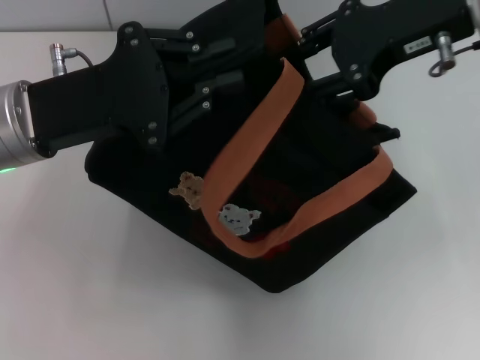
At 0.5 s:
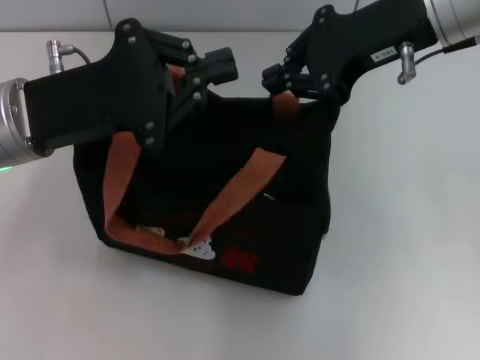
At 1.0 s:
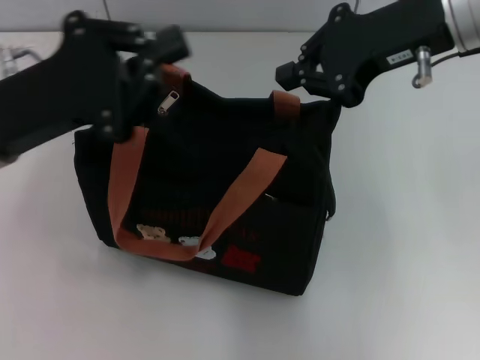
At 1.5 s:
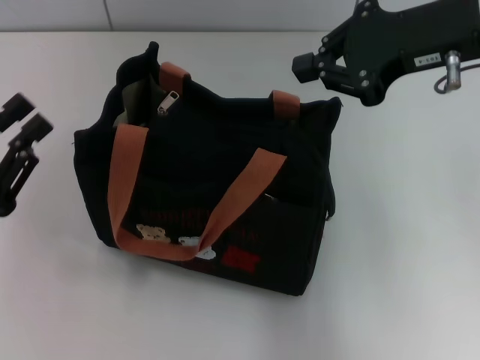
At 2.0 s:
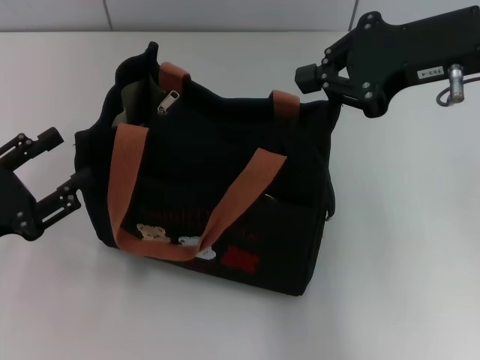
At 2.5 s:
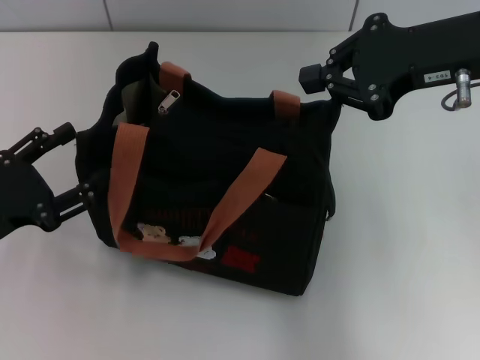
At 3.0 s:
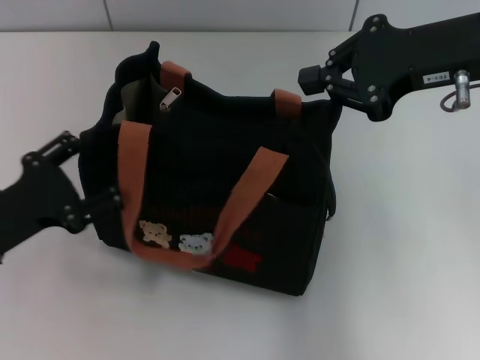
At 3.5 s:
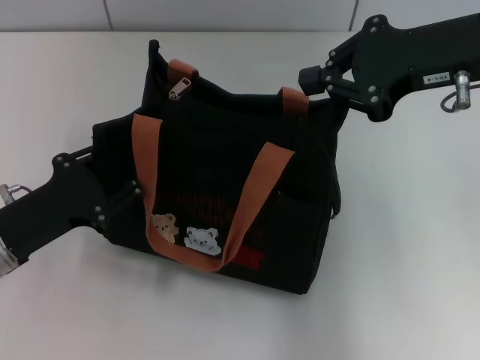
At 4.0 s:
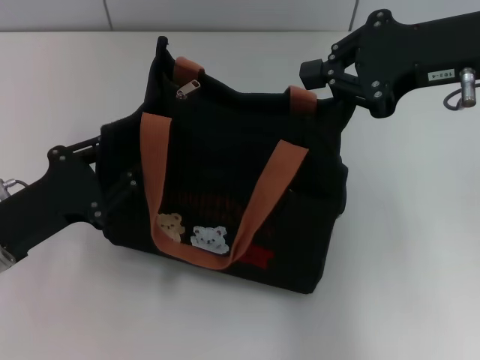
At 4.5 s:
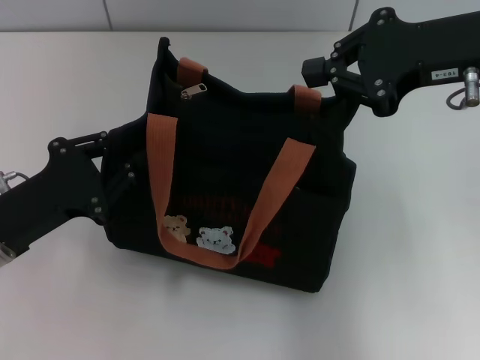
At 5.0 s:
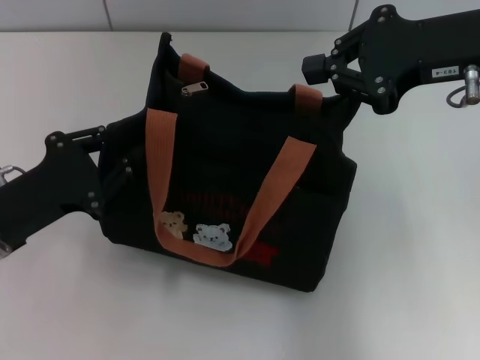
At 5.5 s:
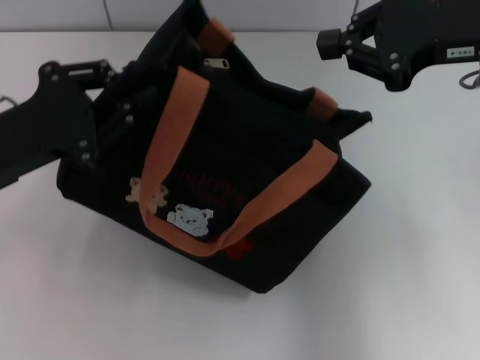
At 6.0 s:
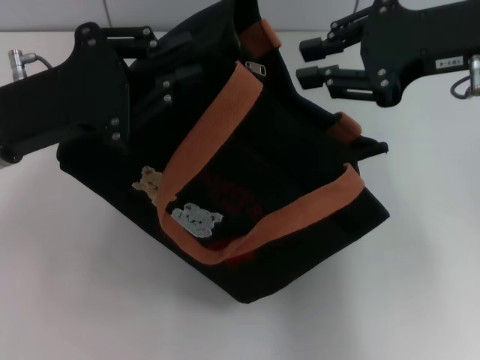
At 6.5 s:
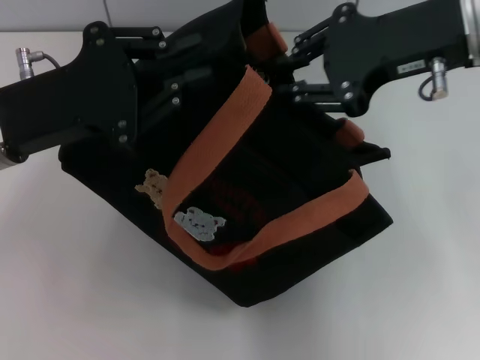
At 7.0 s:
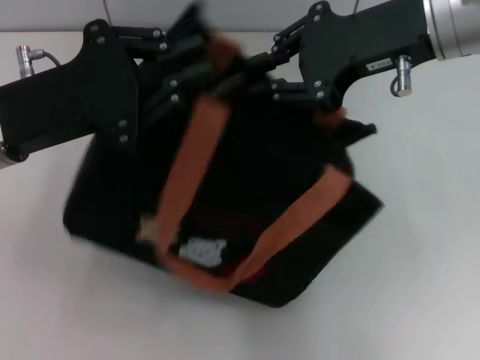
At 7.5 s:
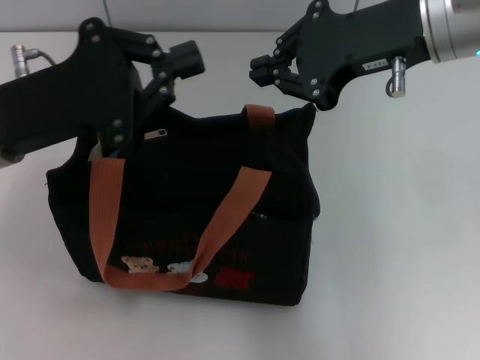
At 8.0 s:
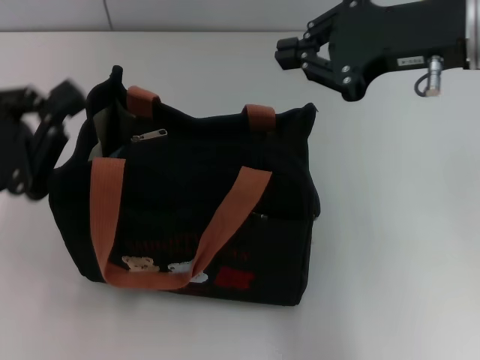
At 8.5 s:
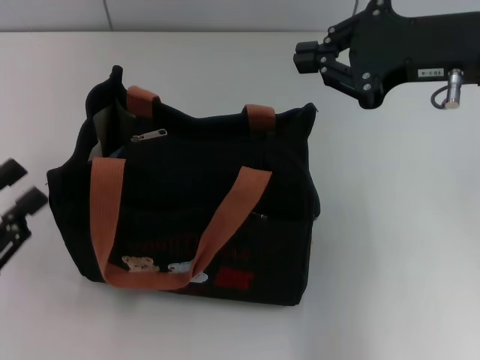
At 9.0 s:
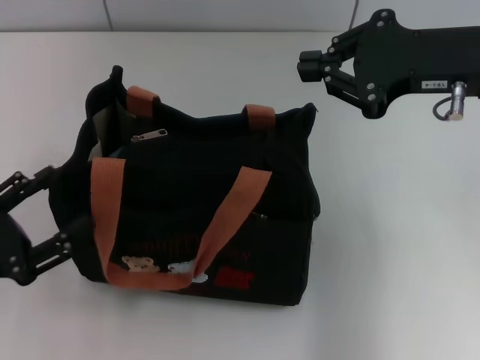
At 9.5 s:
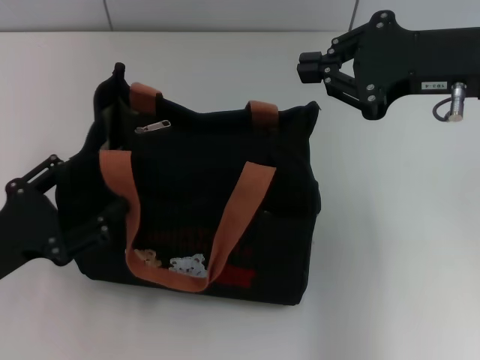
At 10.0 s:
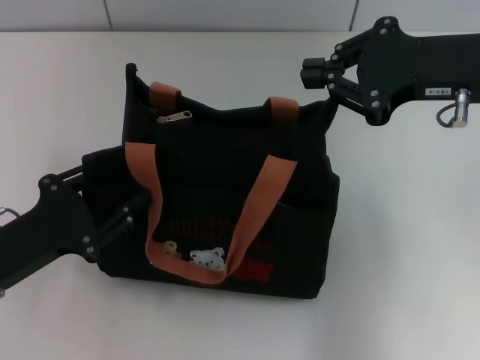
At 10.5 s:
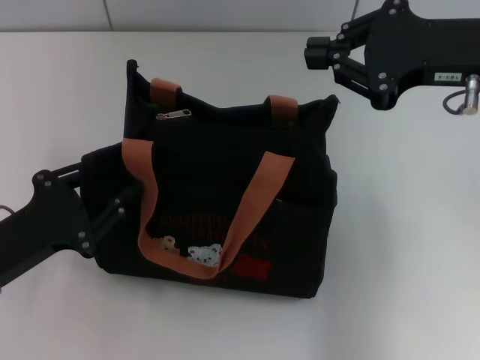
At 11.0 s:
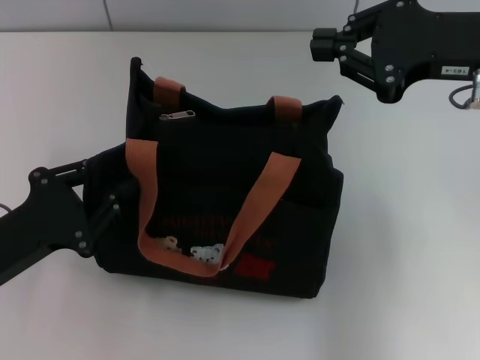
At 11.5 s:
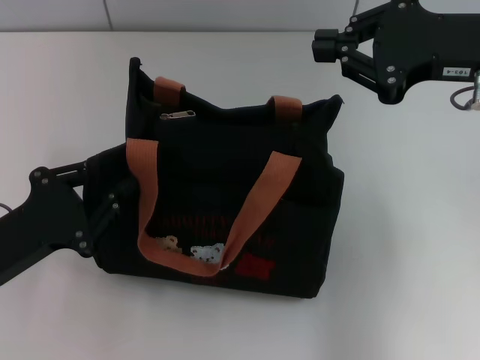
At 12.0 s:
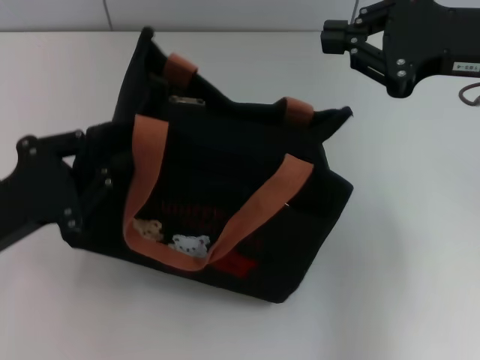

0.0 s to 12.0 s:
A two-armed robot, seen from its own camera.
0.0 to 2.0 s: The left gripper moves to the left, backward and downward, approximately 15 cm, and opens up. The right gripper closes.
2.0 to 4.0 s: The left gripper changes place by approximately 5 cm, and opens and closes again.
4.0 to 6.0 s: The left gripper is displaced upward and forward by some 10 cm.
6.0 to 8.0 s: The left gripper is displaced backward and to the left by approximately 10 cm.
8.0 to 10.0 s: The left gripper is displaced downward by approximately 5 cm, and opens up.
10.0 to 12.0 s: The left gripper closes up.

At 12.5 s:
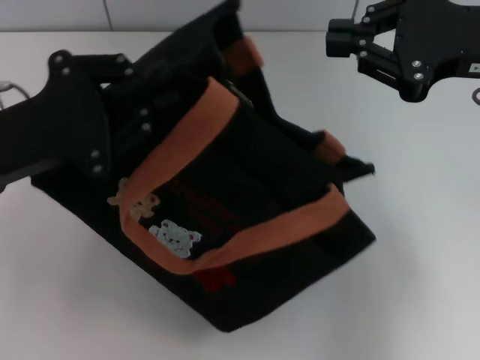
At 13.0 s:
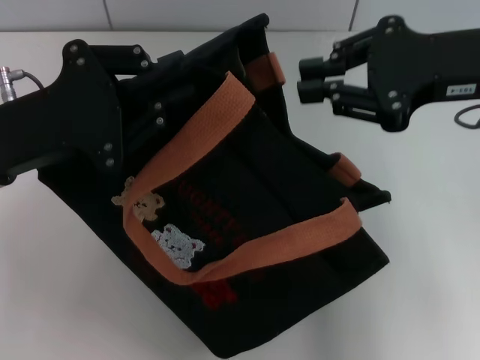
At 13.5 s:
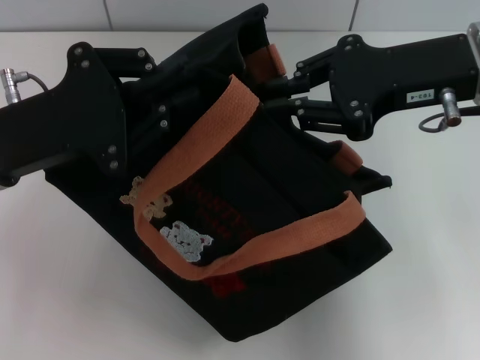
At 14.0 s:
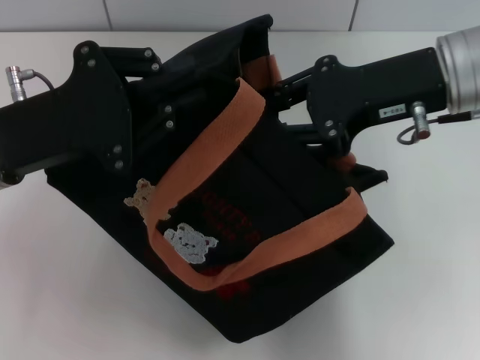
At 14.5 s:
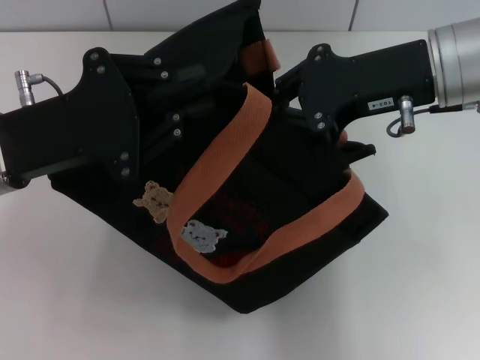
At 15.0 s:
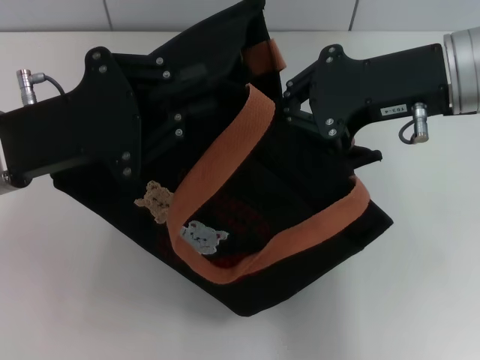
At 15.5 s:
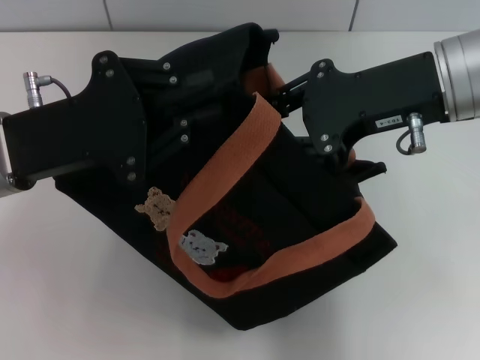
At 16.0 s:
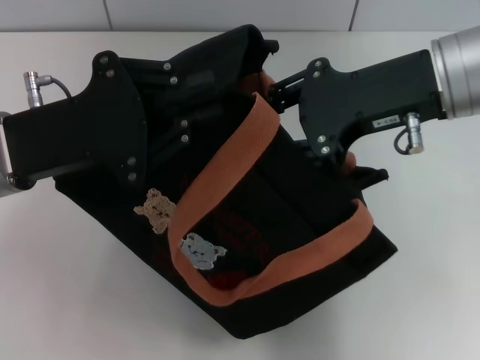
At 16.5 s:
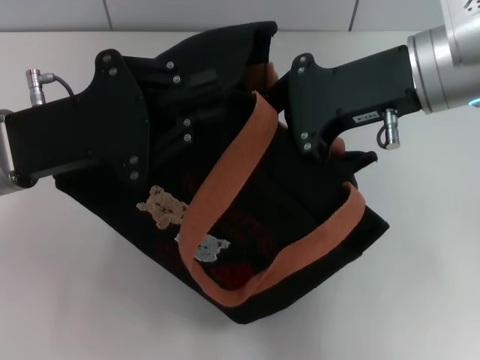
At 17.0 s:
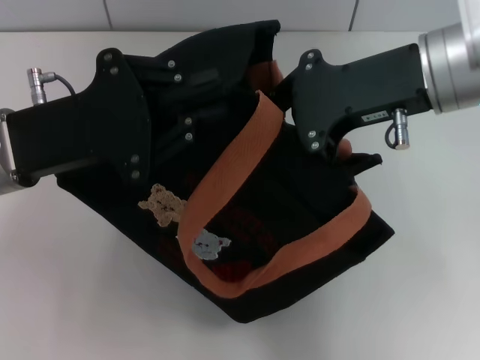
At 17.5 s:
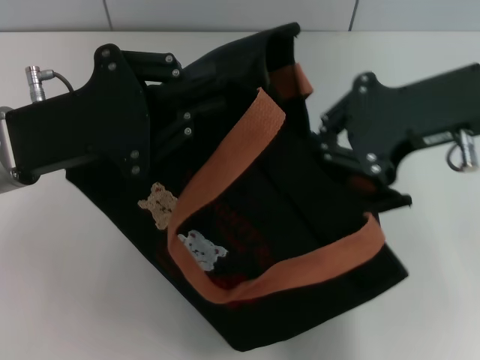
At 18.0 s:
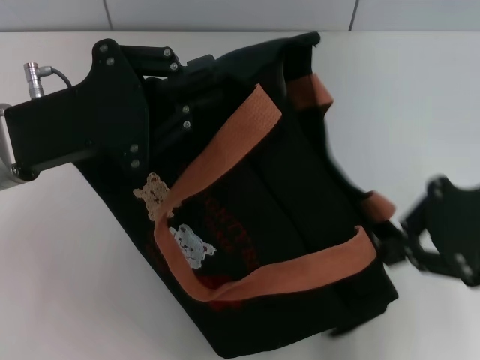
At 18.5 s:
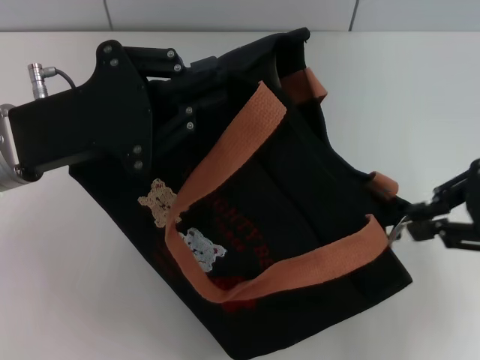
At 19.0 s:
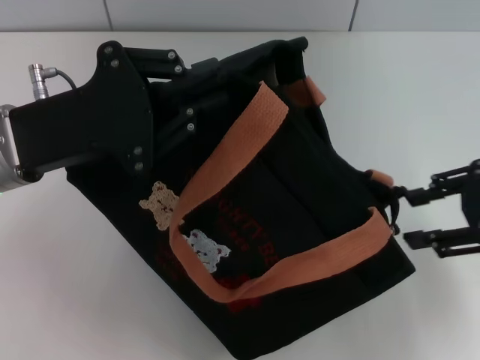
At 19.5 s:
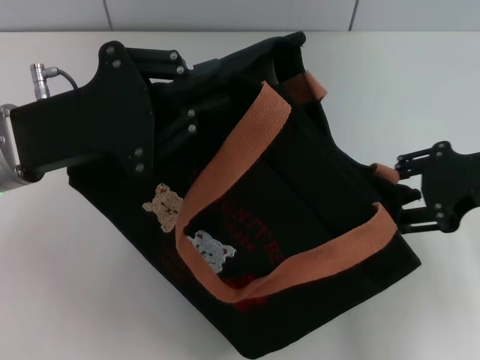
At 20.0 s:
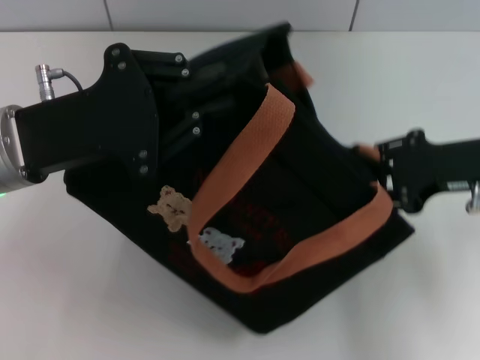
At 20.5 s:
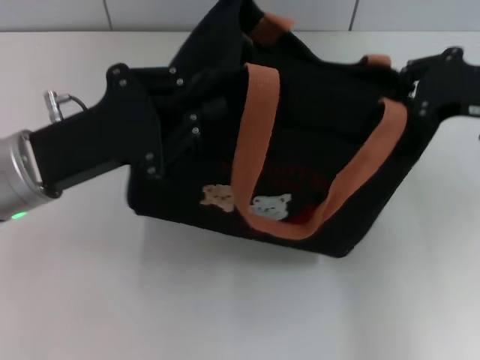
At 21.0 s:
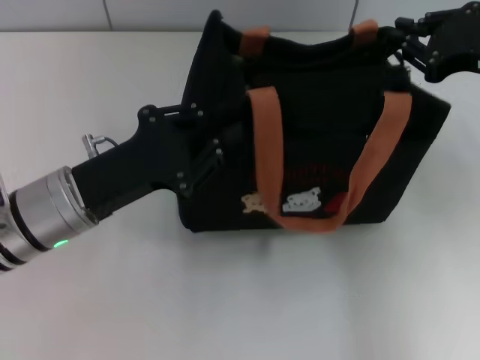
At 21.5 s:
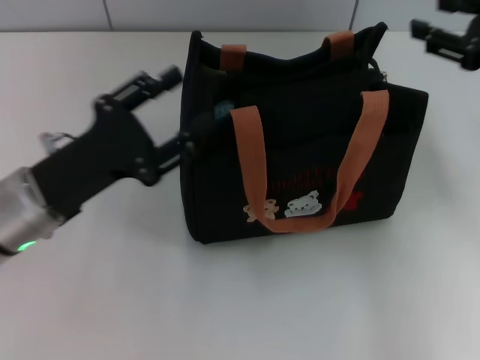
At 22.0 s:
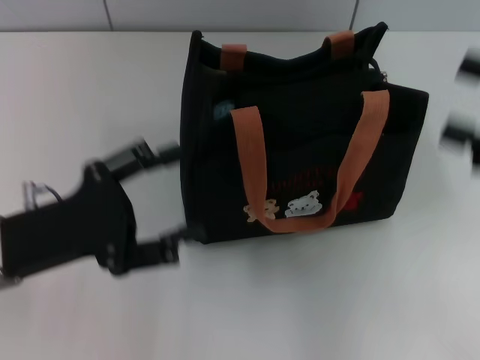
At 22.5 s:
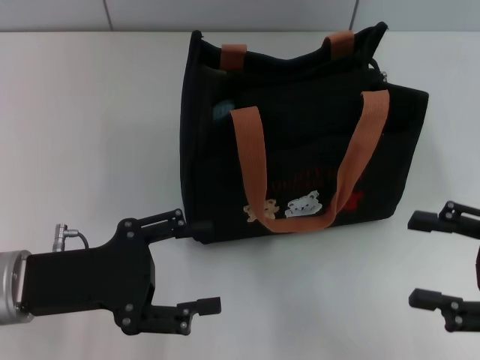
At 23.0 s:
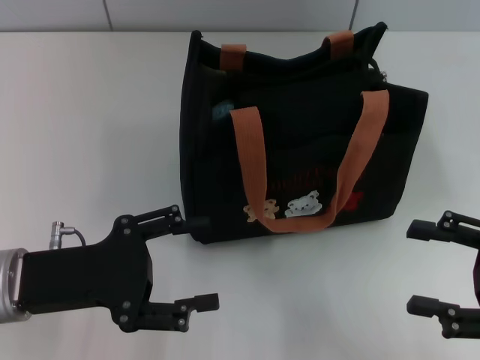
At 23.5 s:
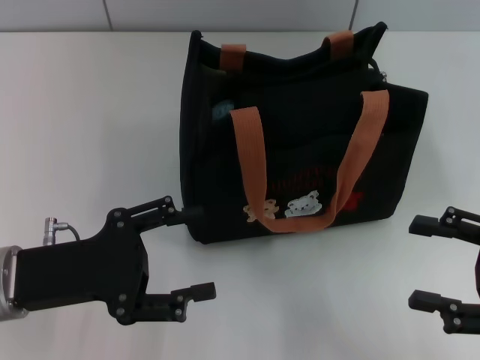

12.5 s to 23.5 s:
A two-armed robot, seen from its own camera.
Step, 12.5 to 21.0 s: Pull open the zipper with your right hand.
12.5 to 14.5 s: The right gripper goes some 5 cm to the left.
14.5 to 16.0 s: The right gripper opens.
16.0 to 18.0 s: The right gripper is displaced to the right and backward by roughly 10 cm, and closes its fingers.
18.0 to 20.0 s: The right gripper shifts approximately 5 cm downward, and opens its fingers.
20.0 to 21.5 s: The left gripper travels downward by roughly 5 cm. The right gripper is displaced upward by about 5 cm.
21.5 to 23.5 s: The right gripper moves backward and downward, roughly 15 cm, and opens. The left gripper opens up.

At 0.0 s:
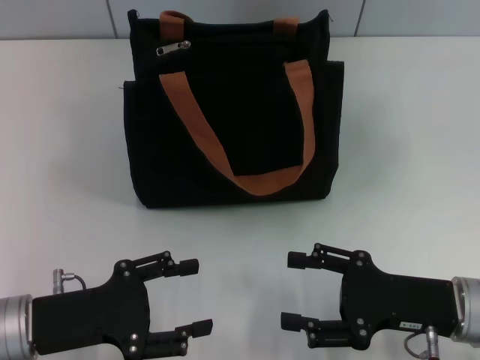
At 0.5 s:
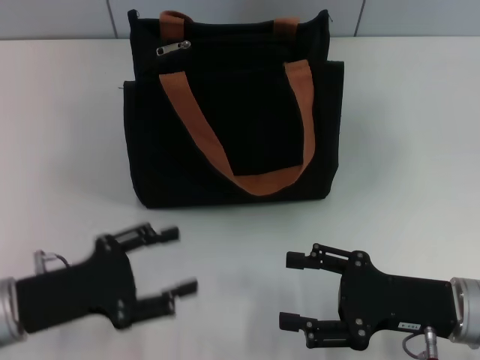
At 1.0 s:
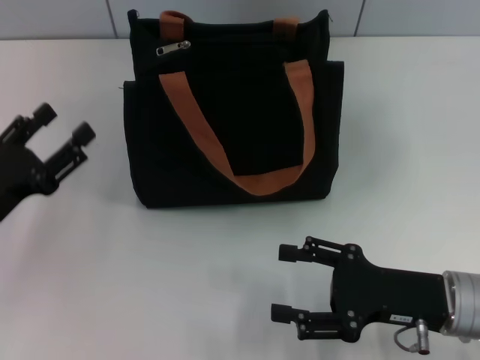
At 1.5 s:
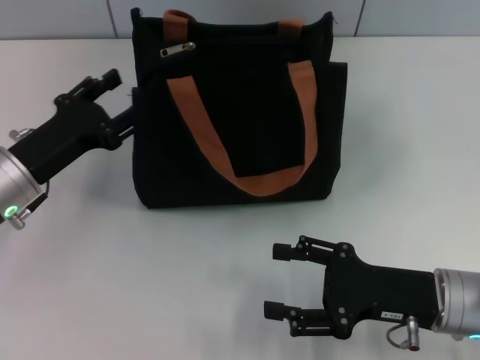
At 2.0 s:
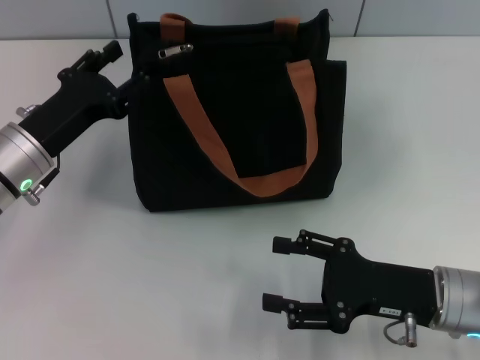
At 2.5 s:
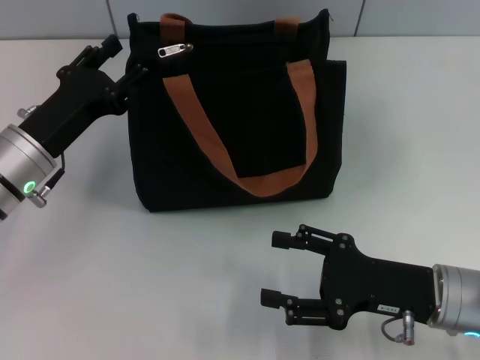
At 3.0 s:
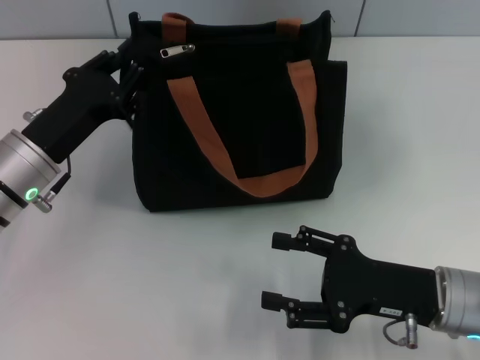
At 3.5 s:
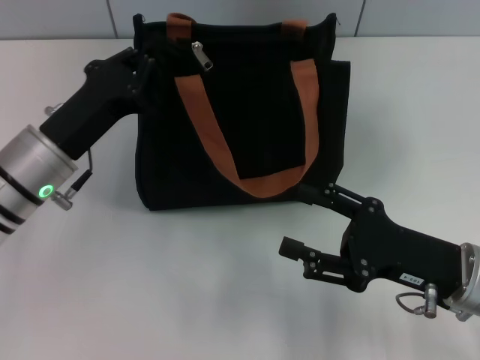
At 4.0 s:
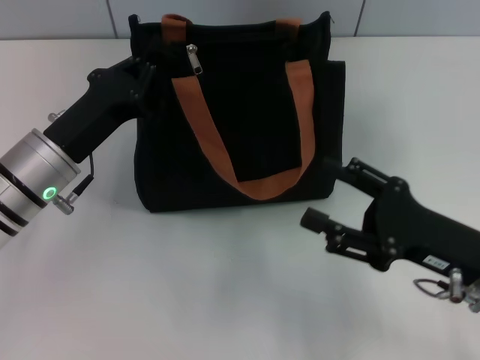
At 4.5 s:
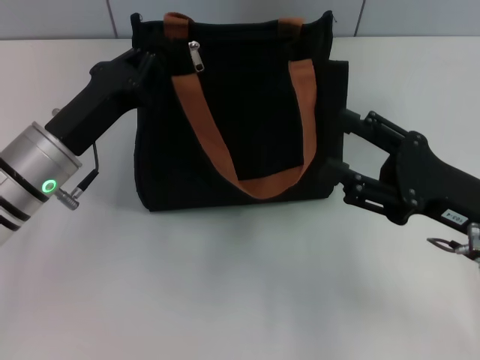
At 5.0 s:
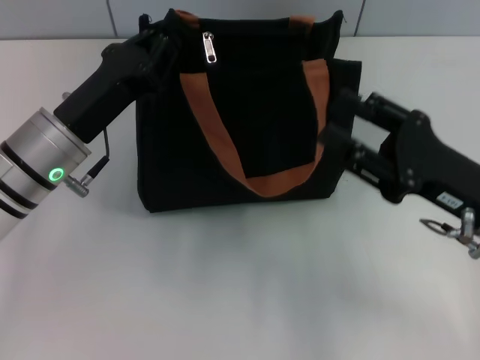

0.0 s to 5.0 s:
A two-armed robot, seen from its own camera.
0.0 to 2.5 s: The left gripper goes approximately 10 cm forward.
2.5 to 5.0 s: The left gripper closes. Meanwhile the right gripper goes some 5 cm upward.
